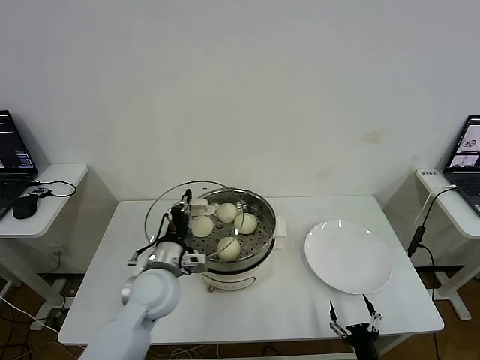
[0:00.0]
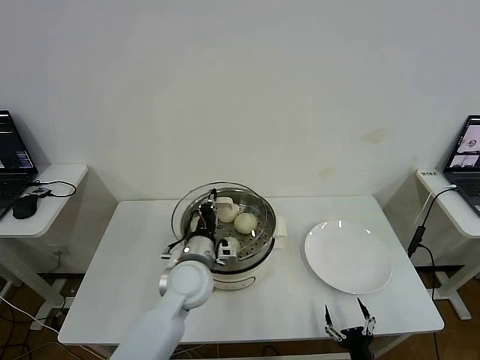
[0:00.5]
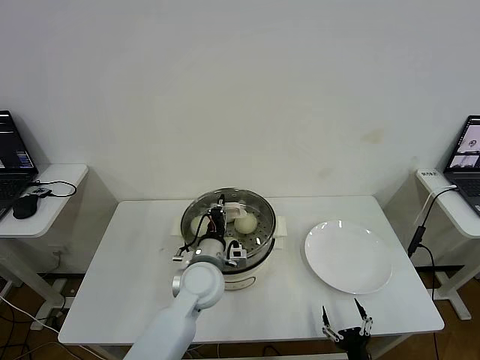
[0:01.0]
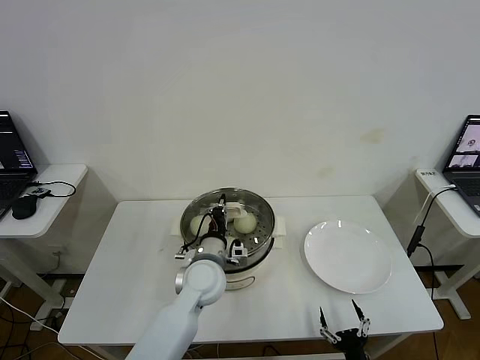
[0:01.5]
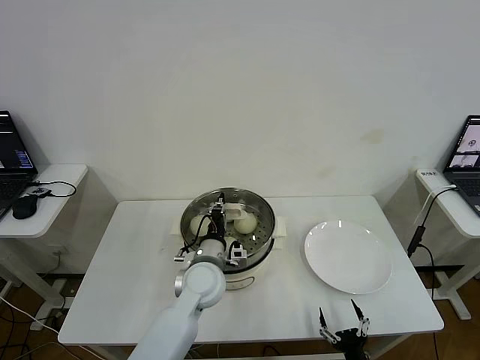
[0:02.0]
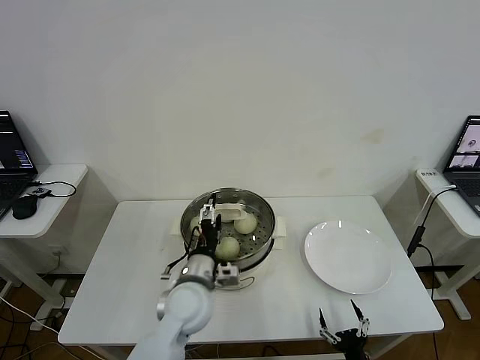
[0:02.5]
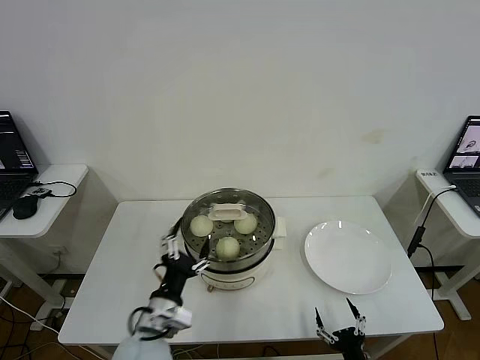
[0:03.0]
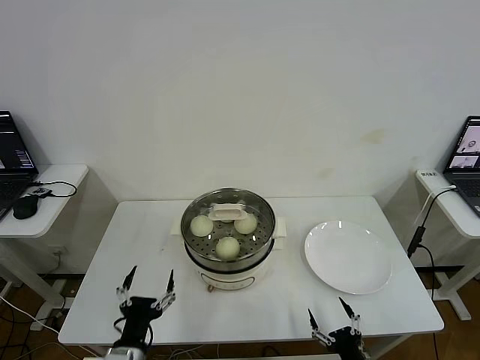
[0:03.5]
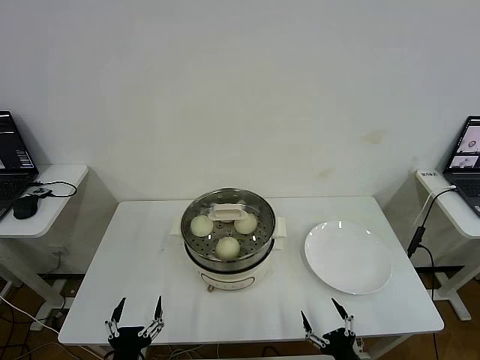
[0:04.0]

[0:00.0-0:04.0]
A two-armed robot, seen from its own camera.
Step, 0:00.0 to 0:02.0: Place the pot lid on the steamer with left gripper.
0:00.0 to 0:02.0: The left gripper moves to the right, roughly 10 cm.
0:02.0 to 0:04.0: The left gripper is displaced backward and to the left by some 30 cm, and opens.
